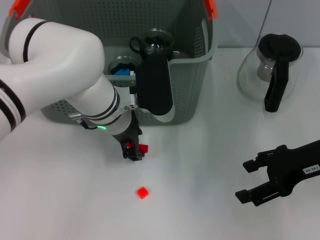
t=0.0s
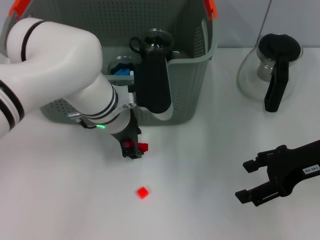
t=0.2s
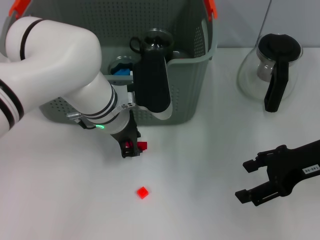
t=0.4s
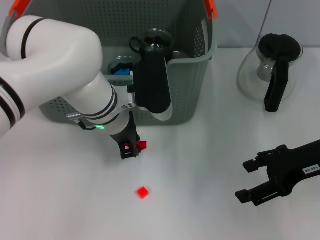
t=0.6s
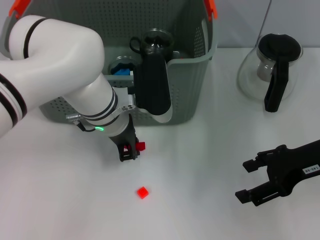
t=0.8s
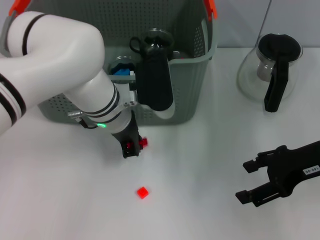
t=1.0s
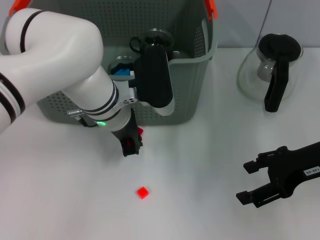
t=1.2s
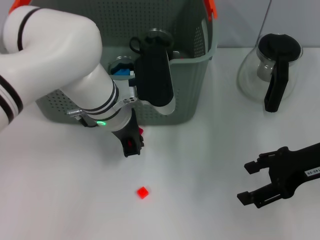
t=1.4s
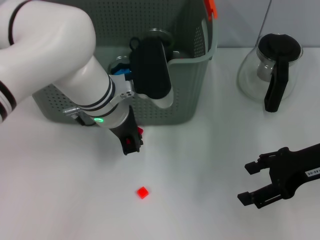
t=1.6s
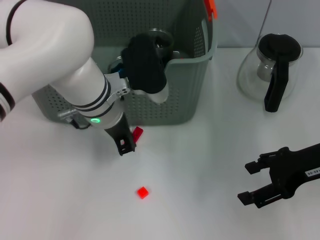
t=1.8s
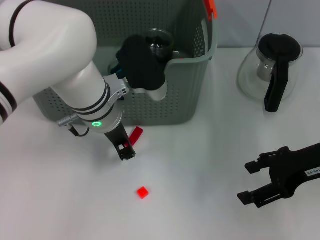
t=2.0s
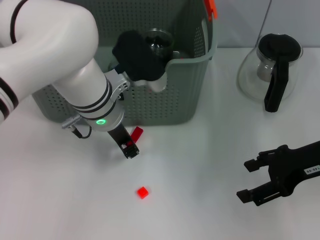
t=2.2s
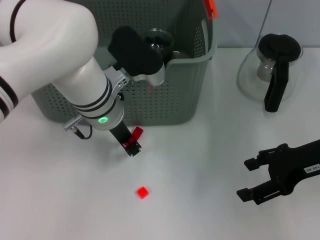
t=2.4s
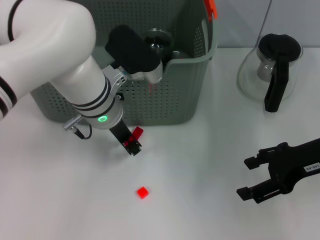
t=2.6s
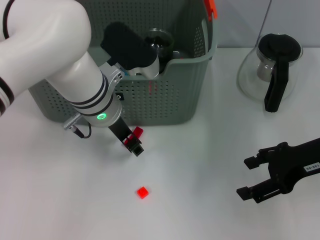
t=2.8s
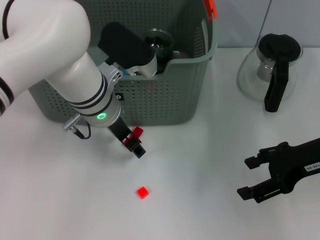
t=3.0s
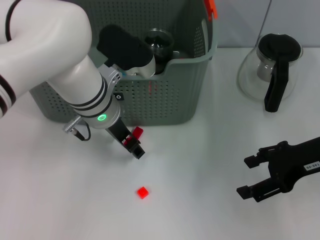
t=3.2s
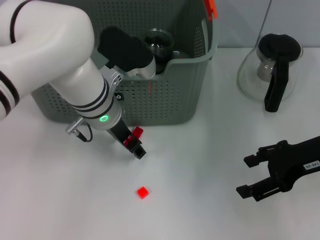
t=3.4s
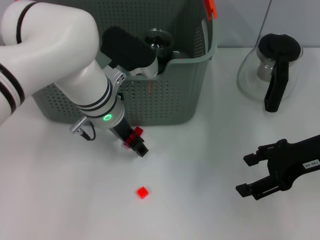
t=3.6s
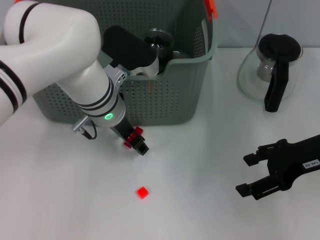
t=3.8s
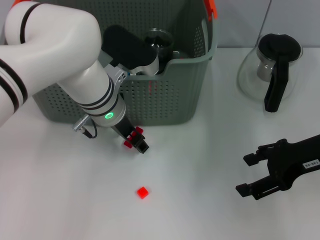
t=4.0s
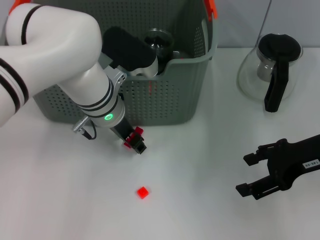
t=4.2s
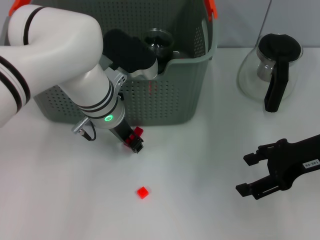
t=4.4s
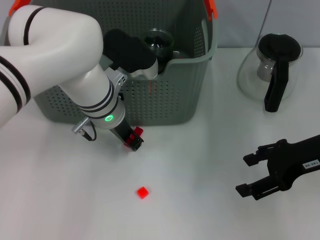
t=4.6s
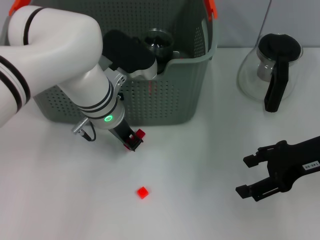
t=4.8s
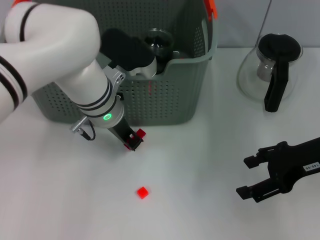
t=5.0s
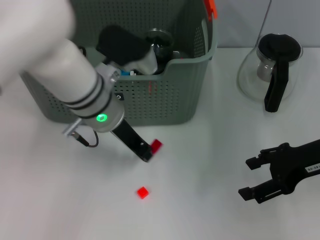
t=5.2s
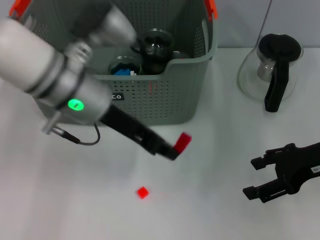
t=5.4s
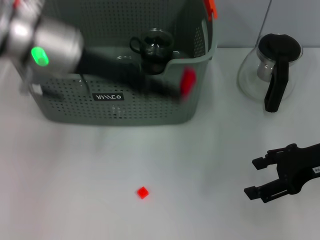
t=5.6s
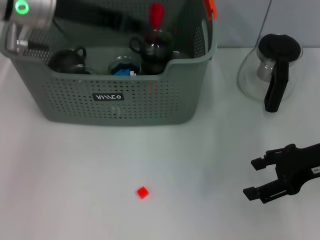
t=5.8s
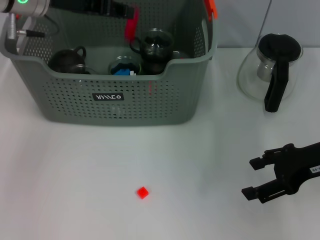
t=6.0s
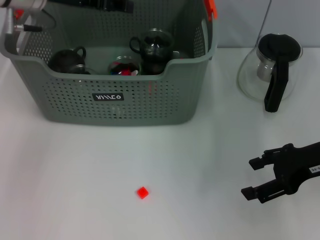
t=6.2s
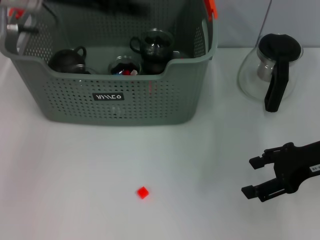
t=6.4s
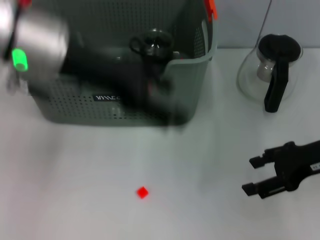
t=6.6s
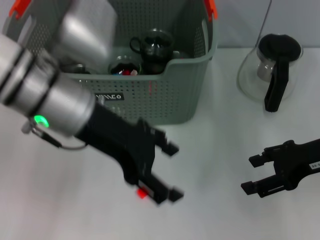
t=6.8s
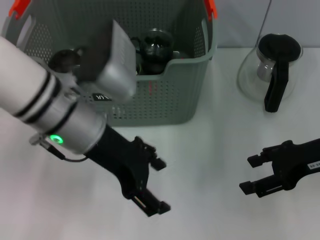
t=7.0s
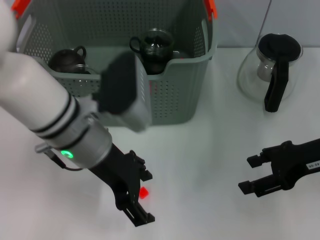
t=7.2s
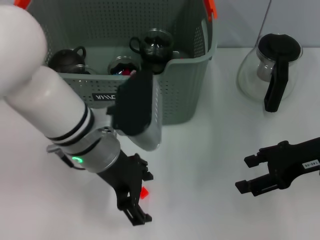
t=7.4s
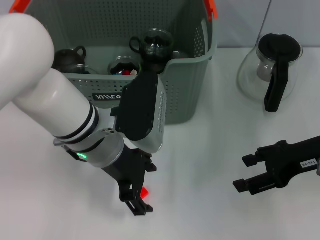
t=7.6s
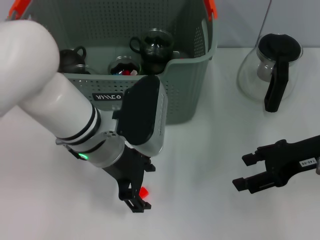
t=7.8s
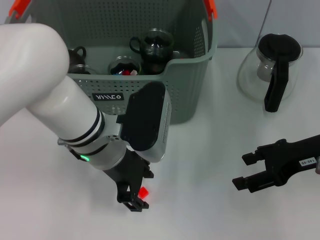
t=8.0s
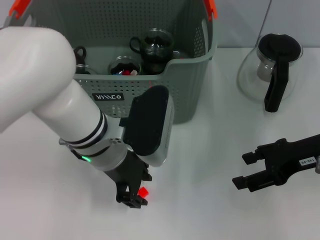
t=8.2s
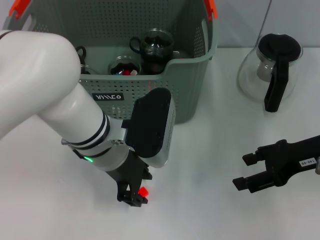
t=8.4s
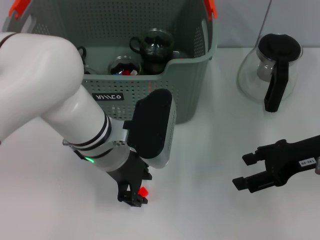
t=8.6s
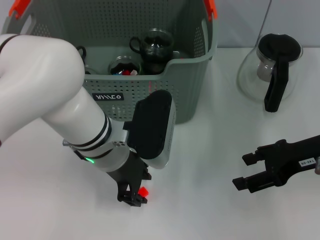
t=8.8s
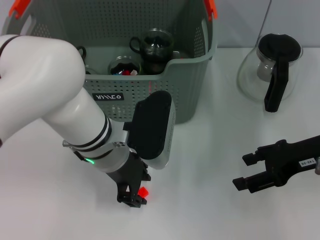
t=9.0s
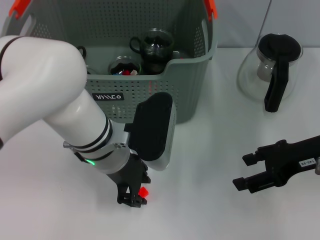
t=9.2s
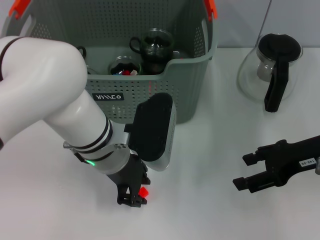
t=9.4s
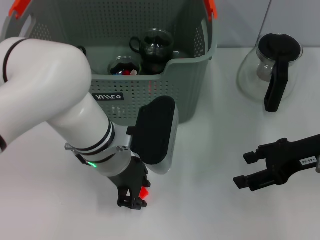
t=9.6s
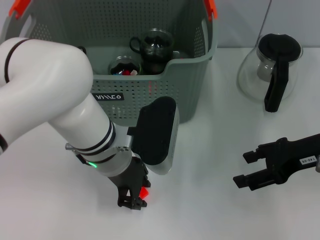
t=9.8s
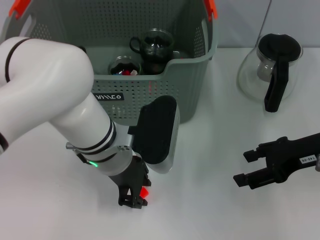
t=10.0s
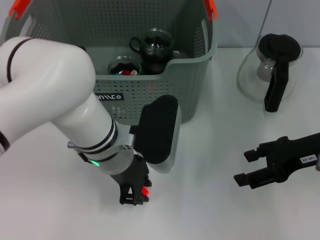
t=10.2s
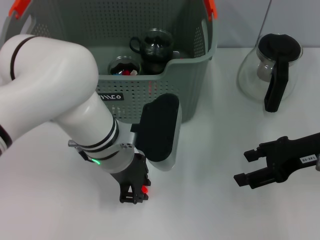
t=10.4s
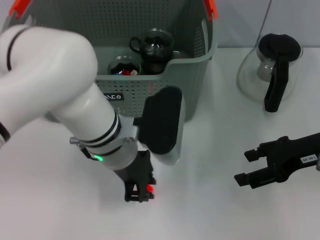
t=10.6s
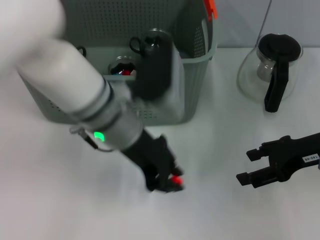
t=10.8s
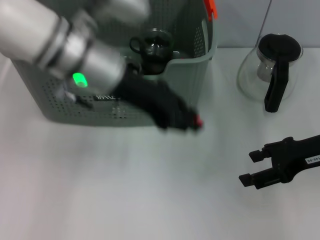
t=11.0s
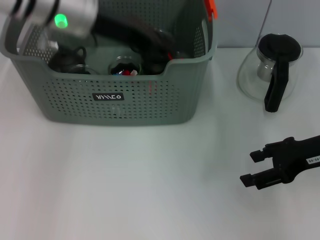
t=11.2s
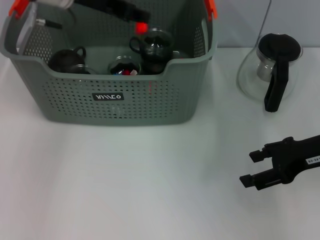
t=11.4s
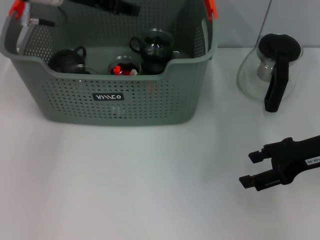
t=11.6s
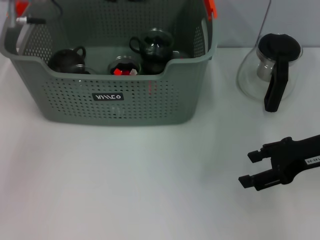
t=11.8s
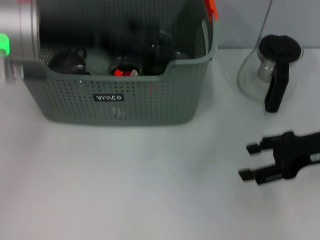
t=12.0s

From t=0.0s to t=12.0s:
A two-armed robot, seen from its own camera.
Task of the whole recording: pick up the teacup on the table and place it into the storage bin, pick up the block on the table and place it into the storage bin.
Step, from t=0.0s to t=5.0s: Grasp the red block with left gripper.
Step, from t=5.2s to t=6.2s: Place the red block in the storage box with left gripper.
Step, from t=6.6s to t=10.2s: Grasp the orange block with left gripper.
Step, from t=10.4s to t=11.6s: Place the orange block in the storage box with left gripper.
From t=0.0s to t=1.6s: The left gripper closes up.
From t=1.6s to t=3.0s: The left gripper opens its fingers.
From t=3.0s to t=4.4s: The grippers move only a little.
From t=4.4s to t=6.0s: The left gripper moves upward and to the left, some 15 cm, and closes up.
From t=6.0s to t=7.6s: The left gripper travels backward, downward and to the right by roughly 20 cm, and opens.
From t=7.6s to t=9.0s: The left gripper closes.
From t=9.0s to t=10.4s: Both grippers stay about where they are.
From t=10.4s to t=12.0s: The left gripper travels to the left and upward by about 15 cm, and opens up.

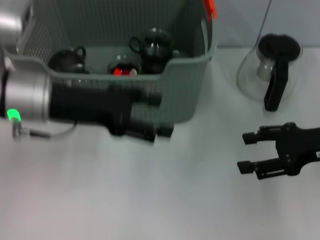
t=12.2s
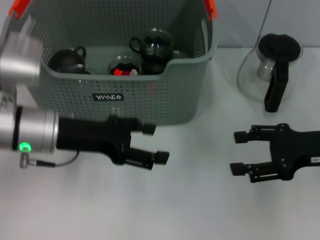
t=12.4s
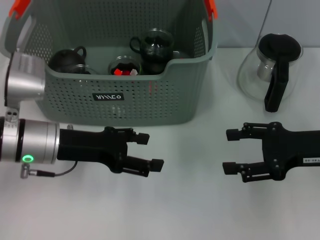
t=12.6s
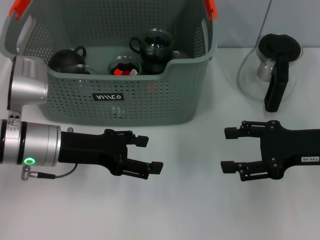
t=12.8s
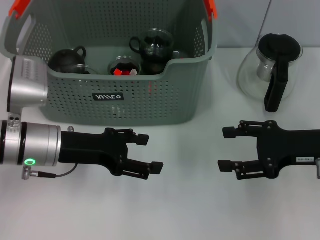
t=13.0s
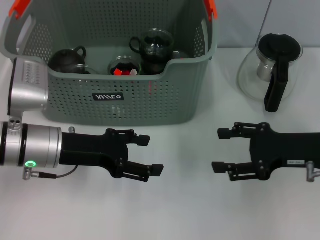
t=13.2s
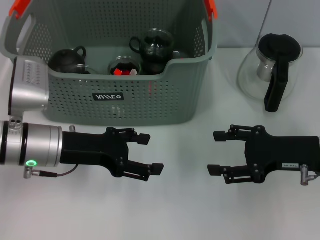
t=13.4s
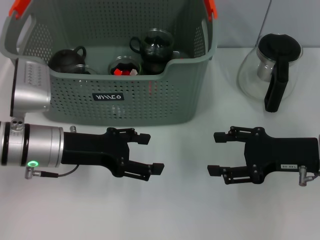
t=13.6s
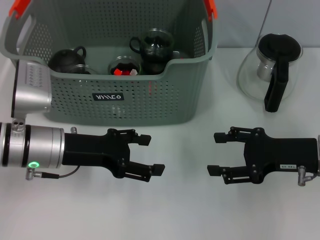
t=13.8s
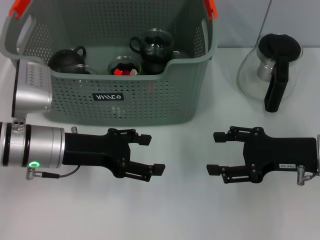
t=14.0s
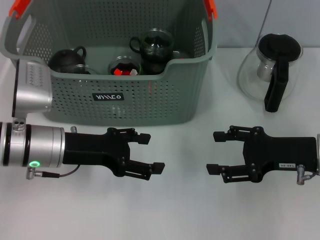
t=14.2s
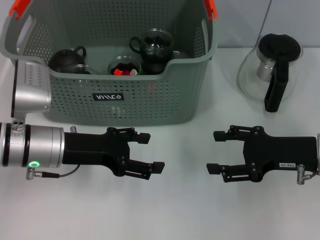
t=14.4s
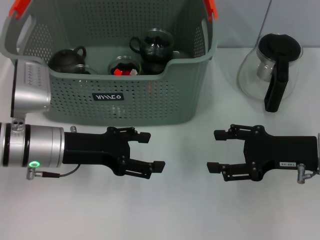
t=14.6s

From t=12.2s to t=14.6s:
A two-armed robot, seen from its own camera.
Task of the whole recording: pick up the teacup on the table and place it into the storage bin, pick up the block on the table and place it into the storage bin.
From t=12.2s to t=13.4s: The right gripper ends up roughly 5 cm from where it was. Meanwhile the left gripper moves downward, roughly 5 cm.
From t=13.4s to t=14.6s: Neither gripper changes place.

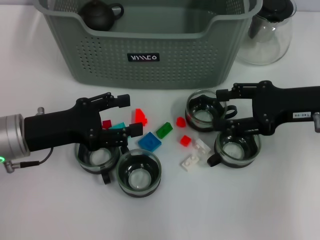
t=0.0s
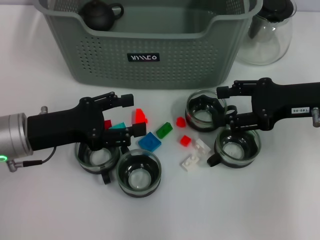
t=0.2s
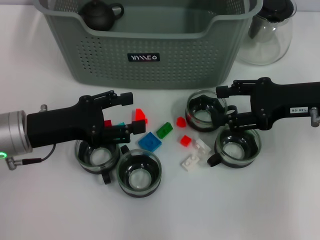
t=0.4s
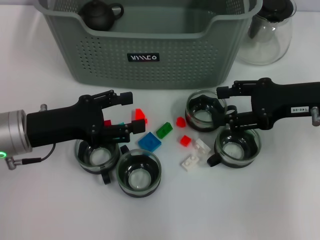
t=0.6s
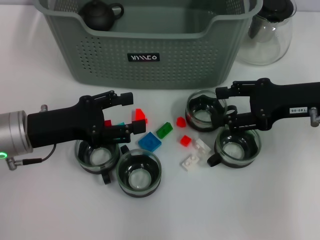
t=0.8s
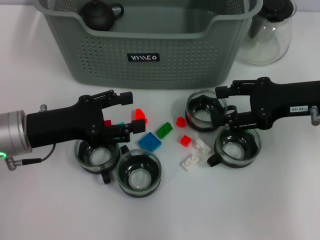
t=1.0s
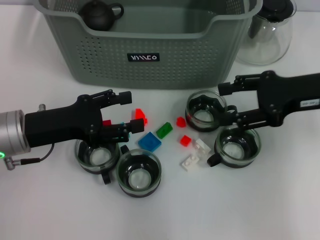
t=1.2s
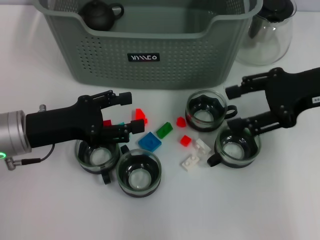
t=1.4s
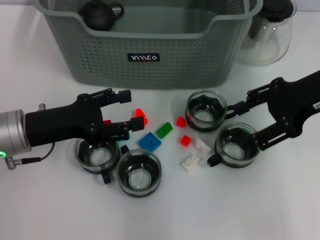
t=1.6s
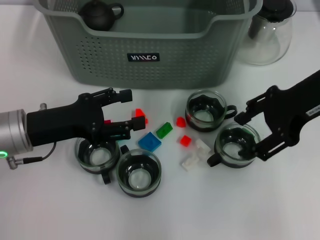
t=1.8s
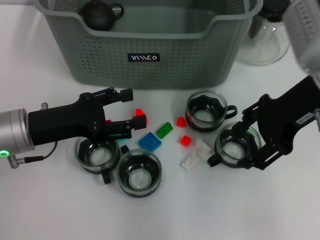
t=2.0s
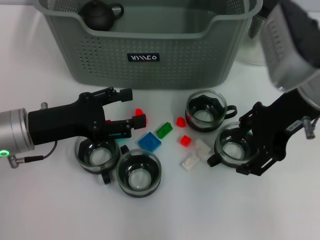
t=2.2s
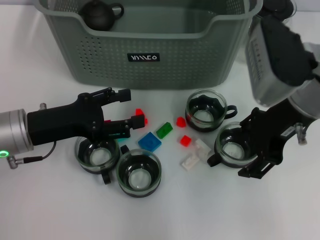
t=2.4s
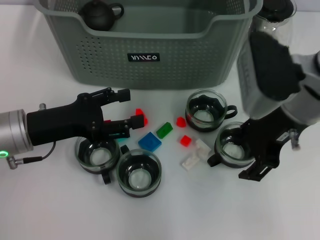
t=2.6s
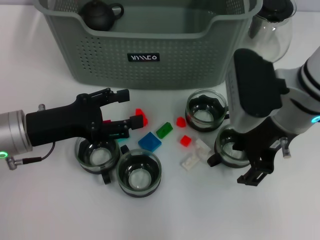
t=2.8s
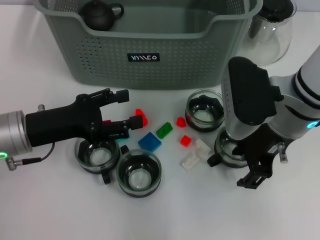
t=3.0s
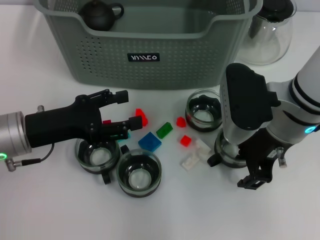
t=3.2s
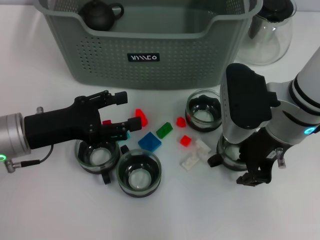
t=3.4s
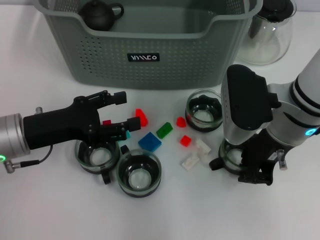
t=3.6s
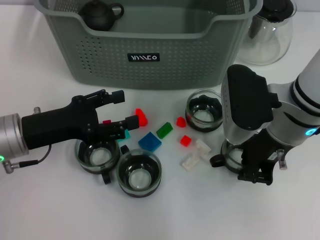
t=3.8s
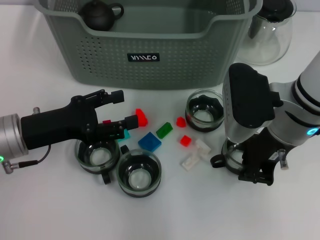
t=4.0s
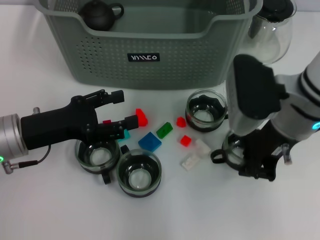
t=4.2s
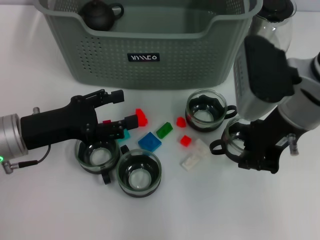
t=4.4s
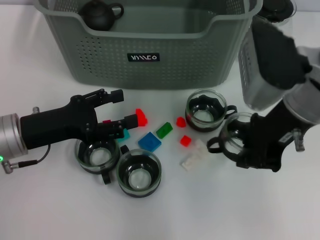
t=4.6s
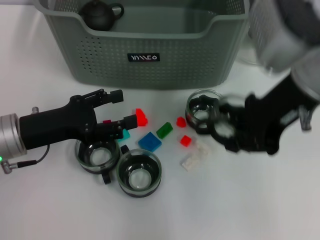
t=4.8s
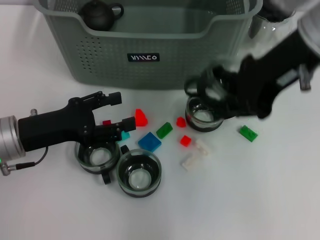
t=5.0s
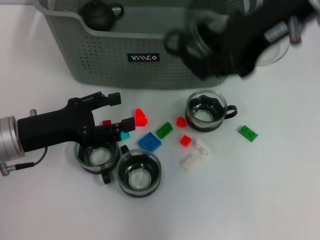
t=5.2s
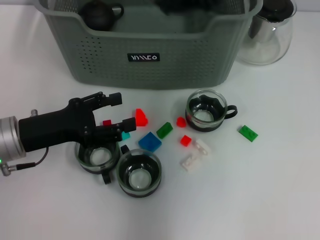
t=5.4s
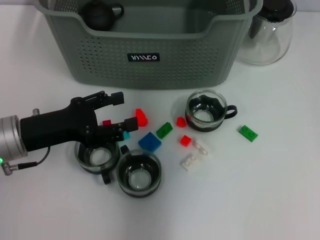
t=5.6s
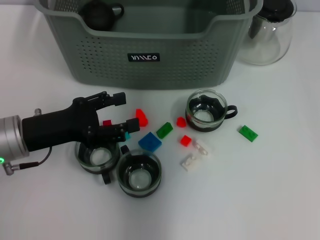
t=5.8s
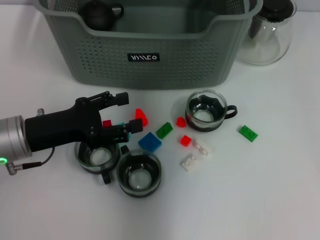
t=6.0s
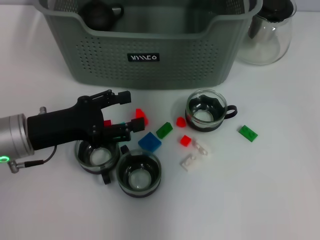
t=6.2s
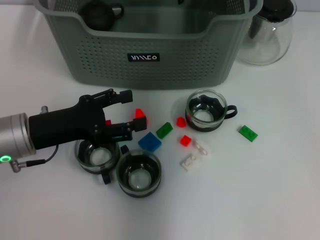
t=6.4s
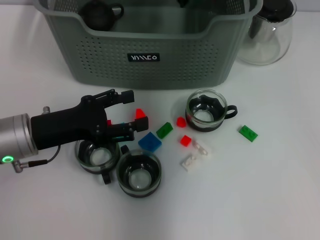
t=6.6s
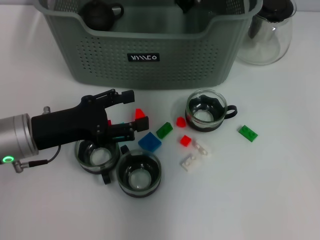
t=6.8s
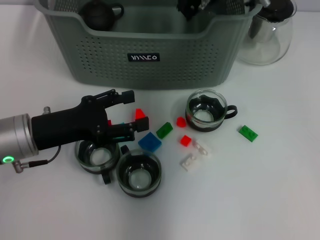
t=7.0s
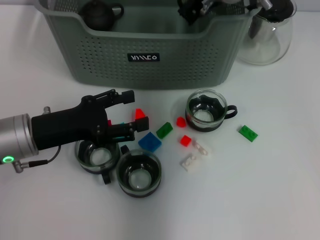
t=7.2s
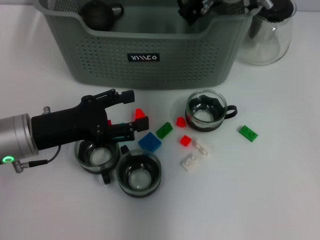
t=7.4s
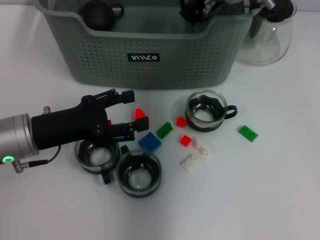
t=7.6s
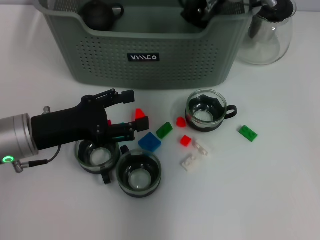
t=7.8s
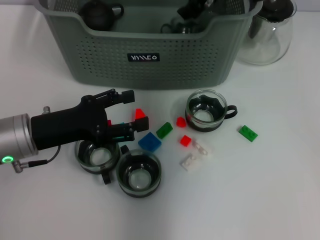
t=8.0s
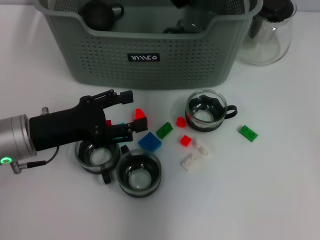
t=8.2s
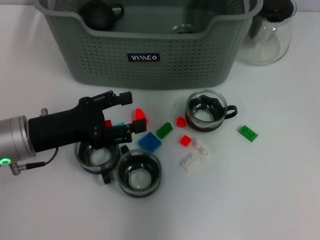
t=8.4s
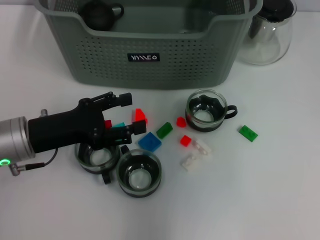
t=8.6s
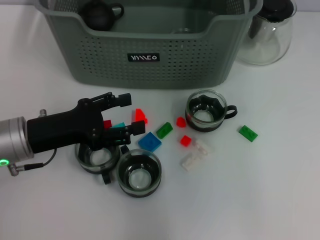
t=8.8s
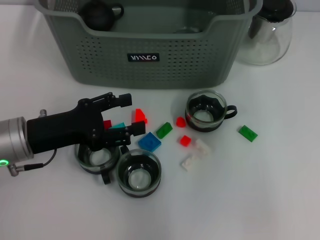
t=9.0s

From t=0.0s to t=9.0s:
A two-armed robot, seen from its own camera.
Task of the whole recording: pick up the teacup on the table and place it into the storage bin, pick up the block on the table and place it into the storage bin.
Step, from t=0.0s to t=3.8s: Grasp the cup with right gripper.
Step, from t=4.0s to t=8.0s: Place the cup in the storage box with right gripper.
From t=0.0s to t=1.6s: The right gripper heads upward, covering some 5 cm.
From t=1.6s to t=3.0s: The right gripper travels to the left by about 10 cm.
From t=3.0s to t=4.4s: The right gripper closes its fingers.
From t=4.4s to t=6.0s: The right gripper moves forward, upward and to the left, some 20 cm.
From t=6.0s to t=7.6s: The right gripper is displaced downward by approximately 10 cm.
From t=7.6s to t=9.0s: The right gripper shifts some 20 cm upward, backward and to the right, and opens.
